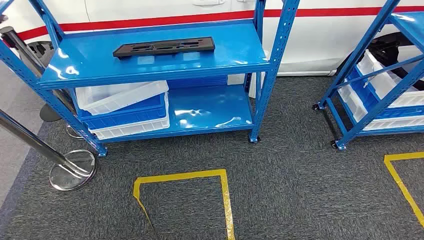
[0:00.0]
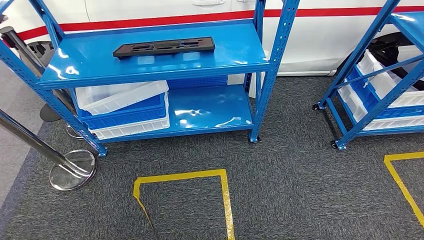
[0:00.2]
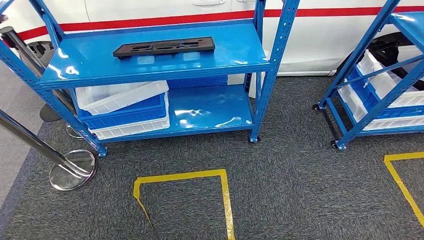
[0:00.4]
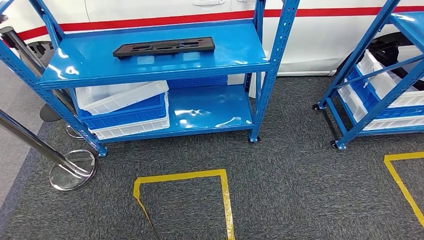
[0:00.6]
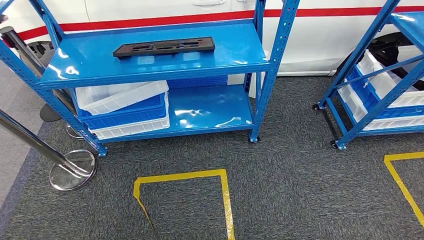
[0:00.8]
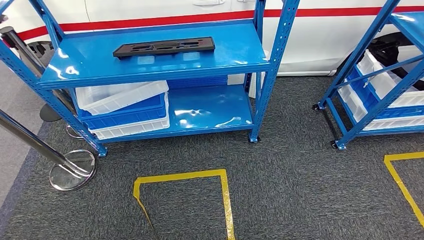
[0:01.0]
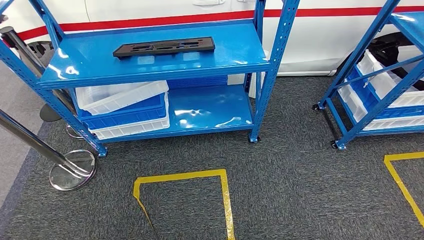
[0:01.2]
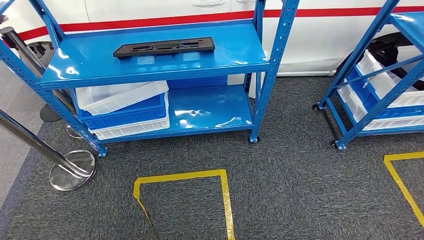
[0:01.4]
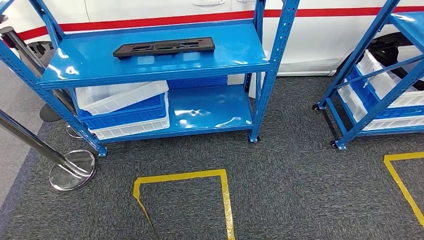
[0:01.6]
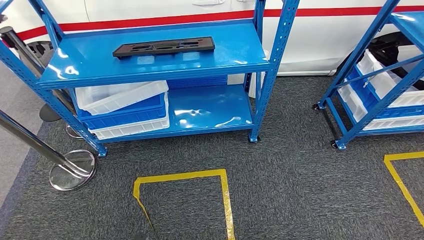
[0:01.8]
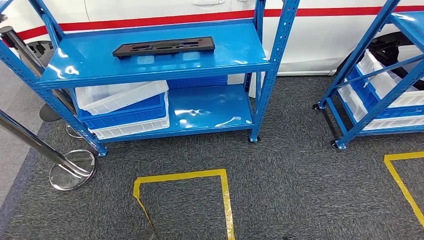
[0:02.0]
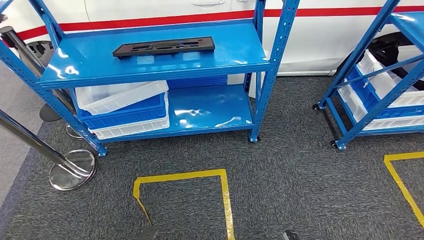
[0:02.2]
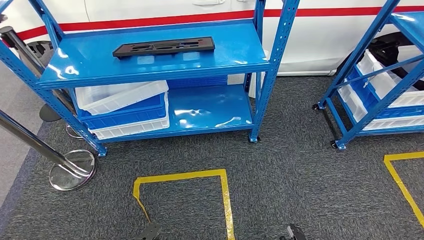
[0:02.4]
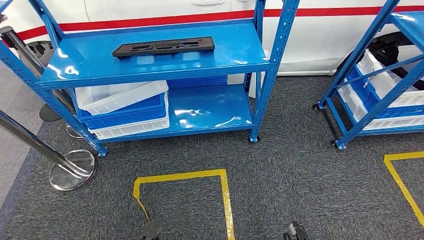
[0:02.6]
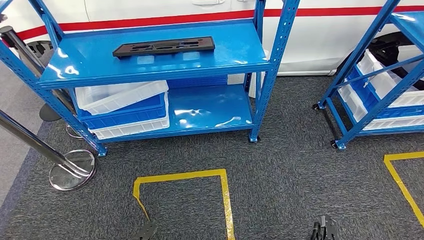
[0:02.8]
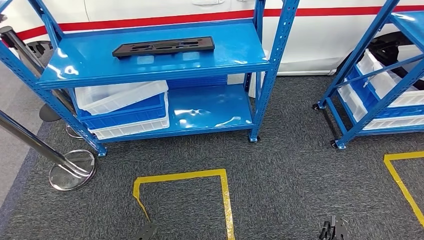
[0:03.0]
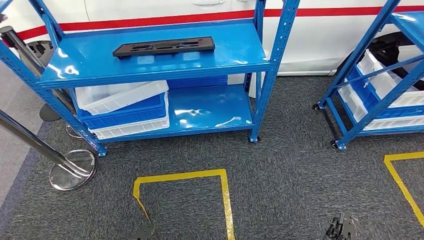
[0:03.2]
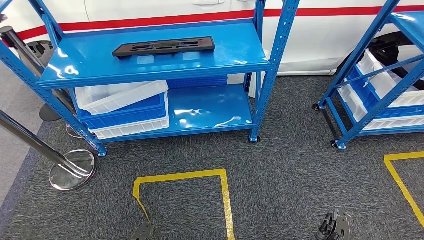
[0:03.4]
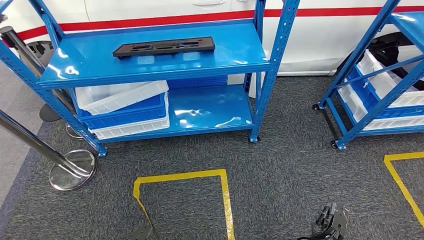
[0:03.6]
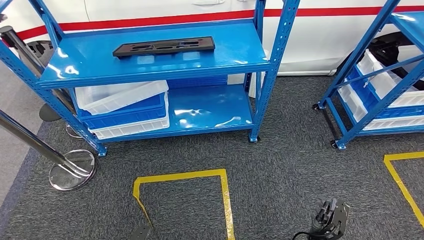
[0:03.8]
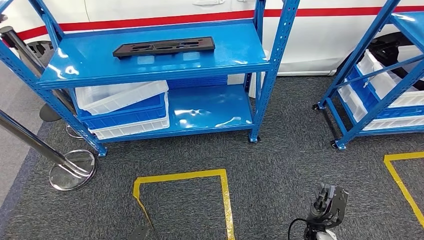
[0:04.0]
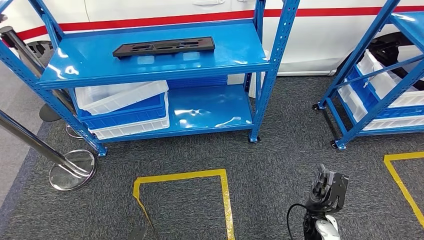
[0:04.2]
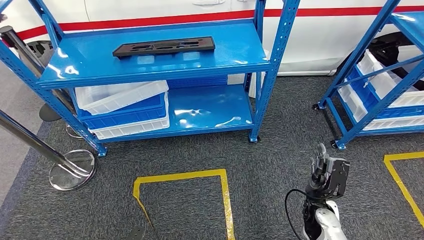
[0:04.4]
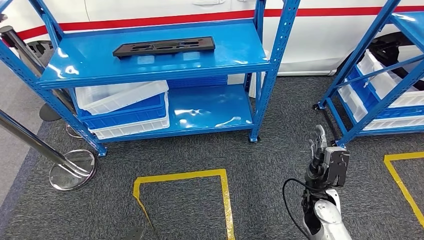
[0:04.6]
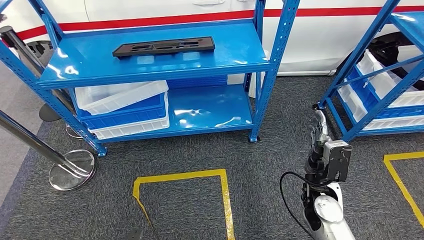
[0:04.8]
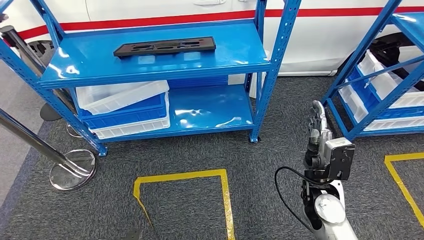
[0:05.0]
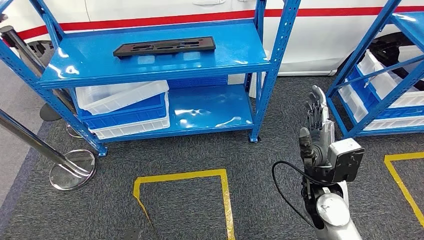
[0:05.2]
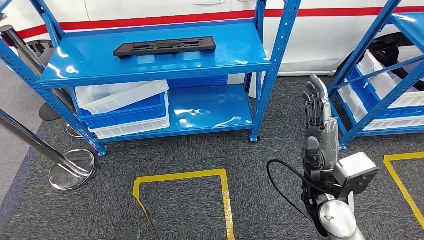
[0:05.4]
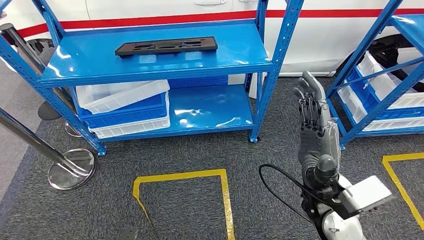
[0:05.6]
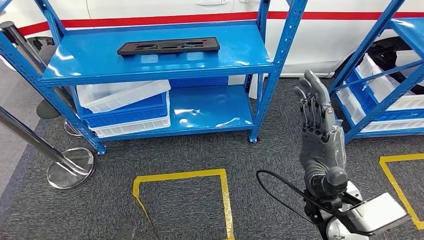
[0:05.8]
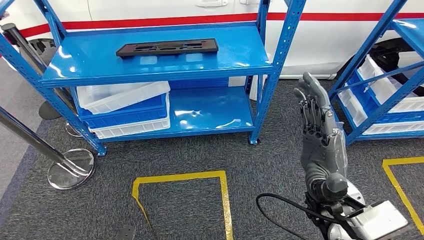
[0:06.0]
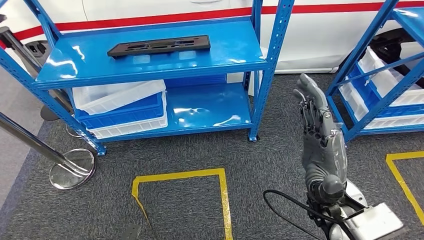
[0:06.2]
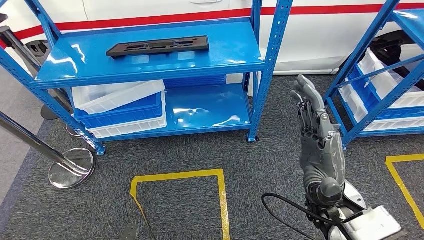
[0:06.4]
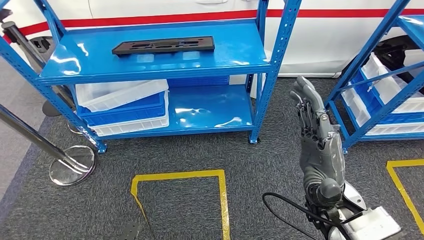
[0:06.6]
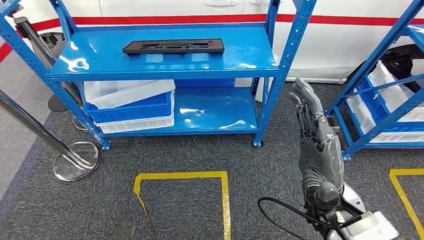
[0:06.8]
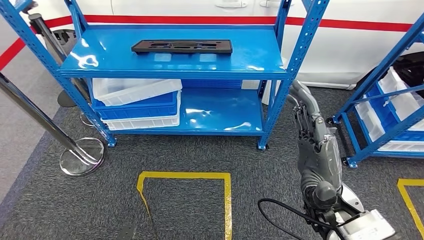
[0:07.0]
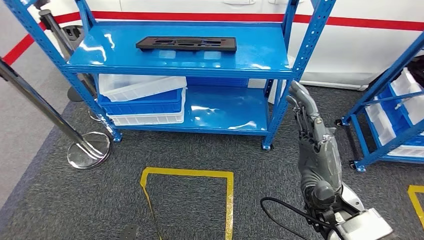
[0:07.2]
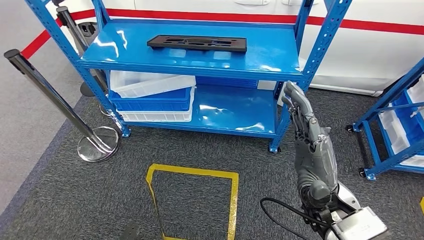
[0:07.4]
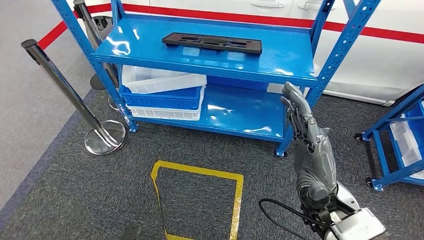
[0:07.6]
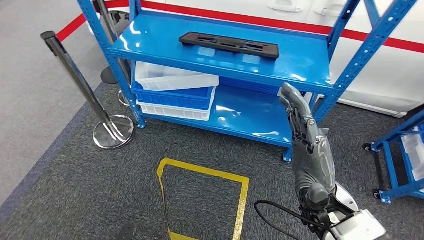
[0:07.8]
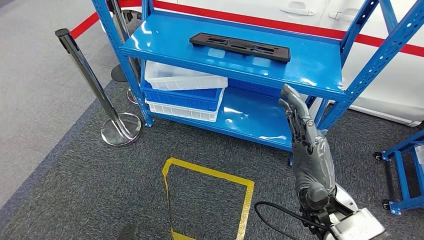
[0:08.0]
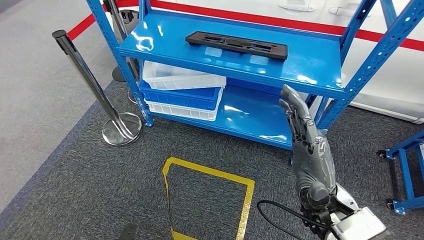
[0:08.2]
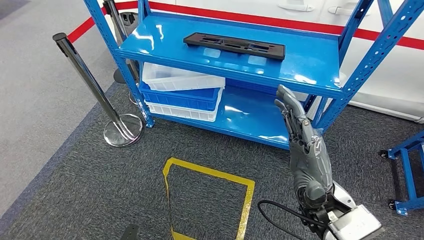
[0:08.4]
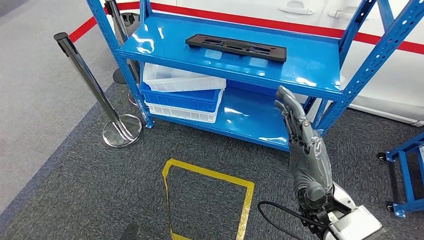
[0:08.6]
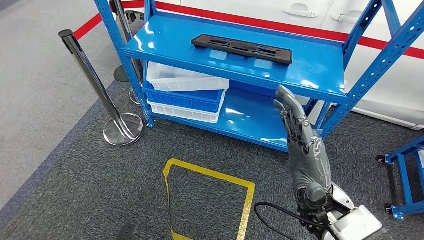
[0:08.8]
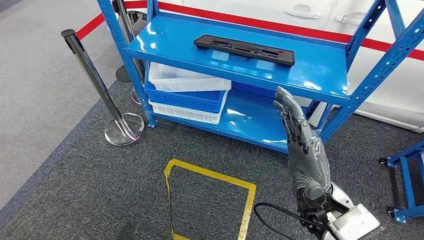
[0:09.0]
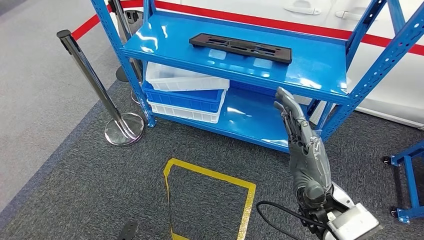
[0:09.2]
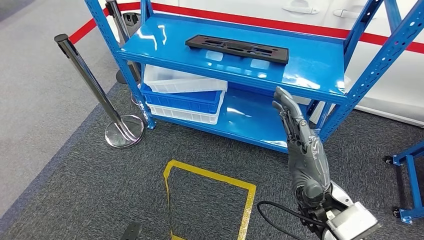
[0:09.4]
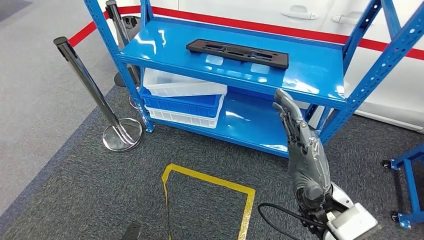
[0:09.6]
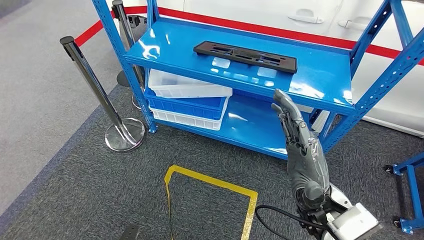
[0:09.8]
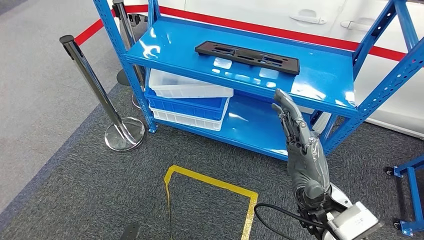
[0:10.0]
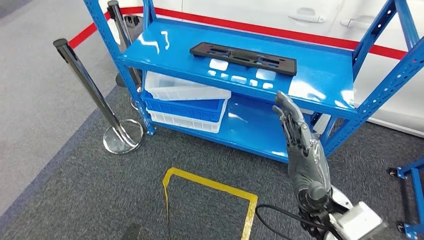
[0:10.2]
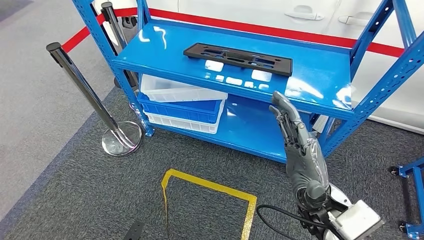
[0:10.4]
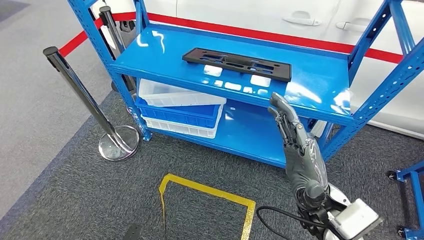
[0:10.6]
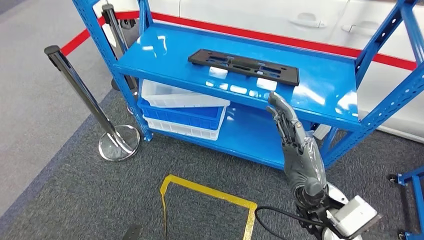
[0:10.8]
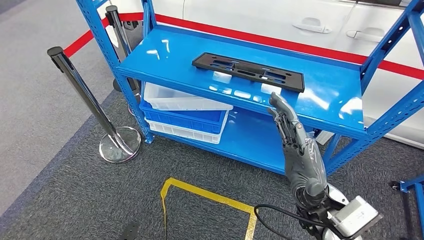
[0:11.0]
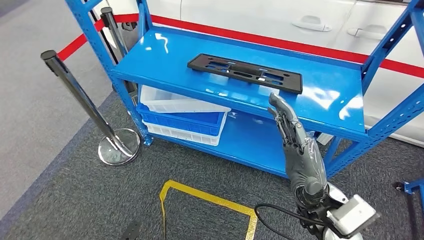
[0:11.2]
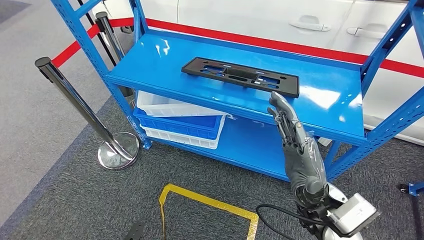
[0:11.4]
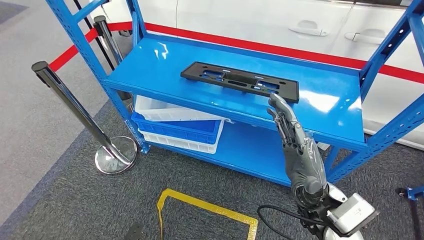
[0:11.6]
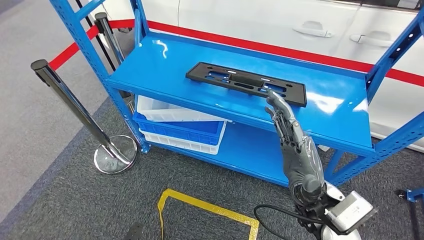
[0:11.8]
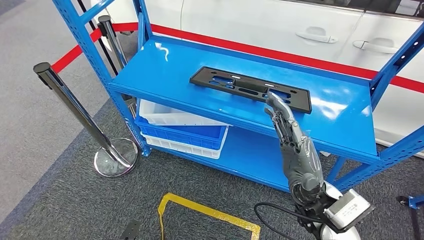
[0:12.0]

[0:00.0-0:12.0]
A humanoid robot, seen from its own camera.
0:01.6 to 0:03.0: The left hand moves forward, roughly 5 cm; the right hand is displaced forward and to the right by some 15 cm.
0:03.0 to 0:04.4: The right hand shifts roughly 20 cm upward and forward.

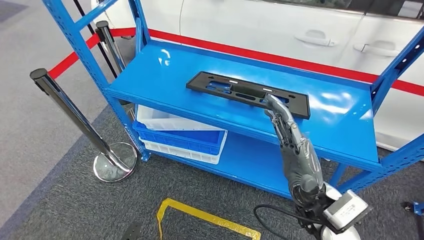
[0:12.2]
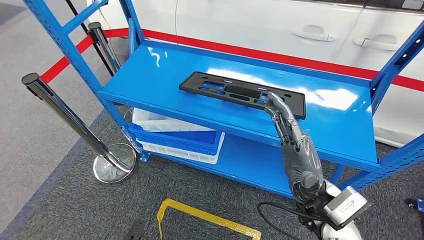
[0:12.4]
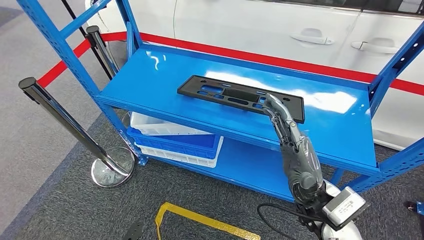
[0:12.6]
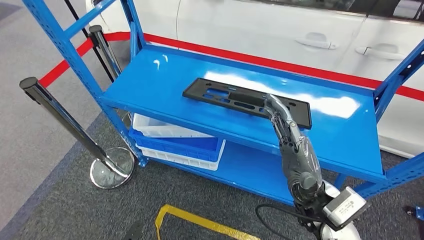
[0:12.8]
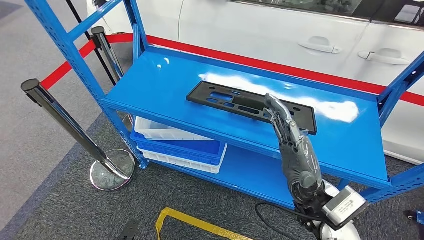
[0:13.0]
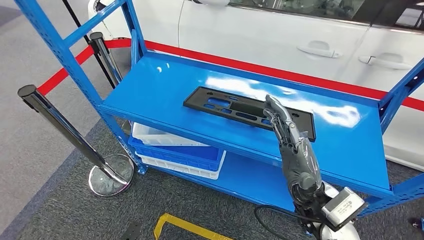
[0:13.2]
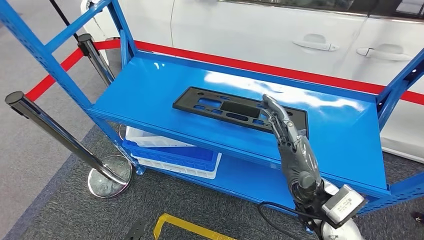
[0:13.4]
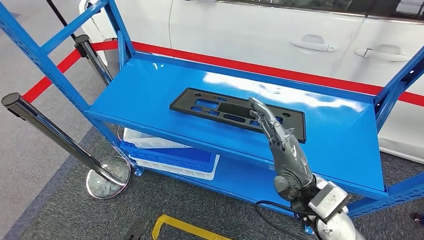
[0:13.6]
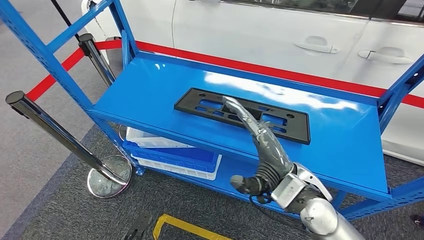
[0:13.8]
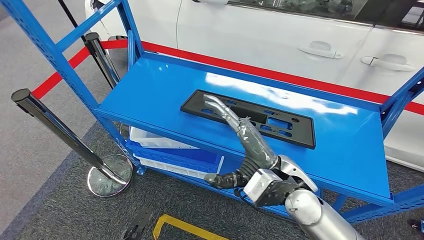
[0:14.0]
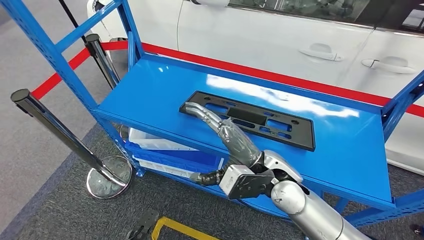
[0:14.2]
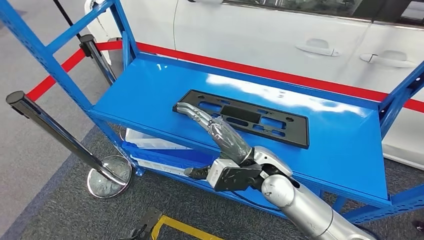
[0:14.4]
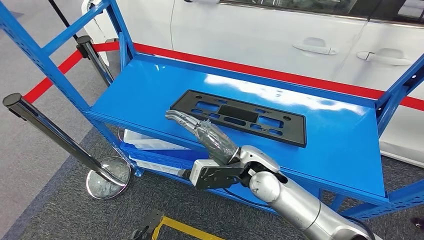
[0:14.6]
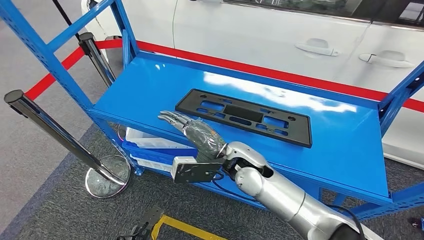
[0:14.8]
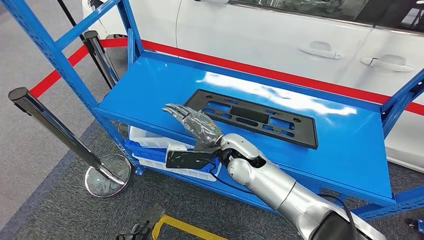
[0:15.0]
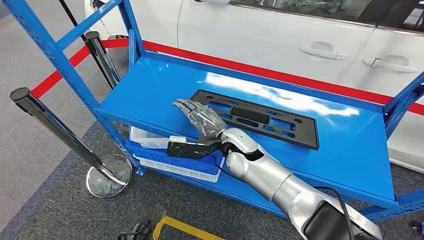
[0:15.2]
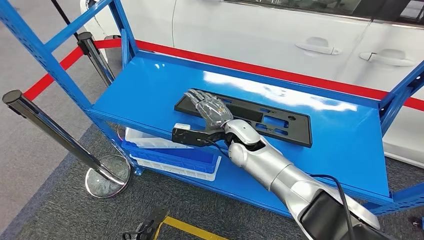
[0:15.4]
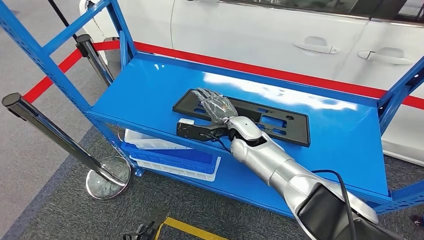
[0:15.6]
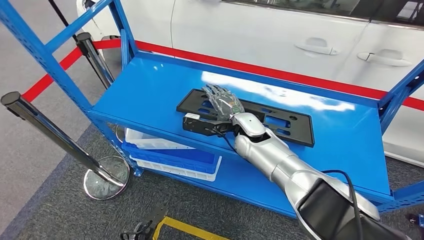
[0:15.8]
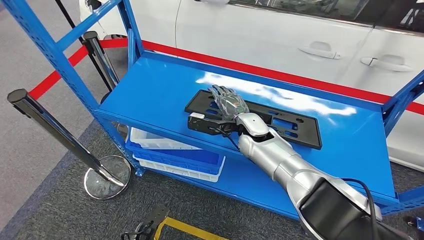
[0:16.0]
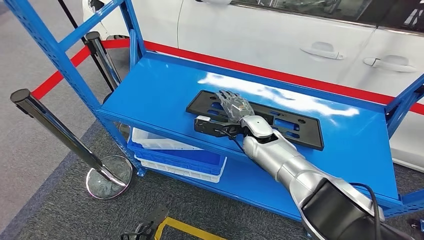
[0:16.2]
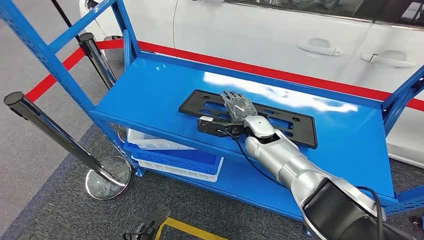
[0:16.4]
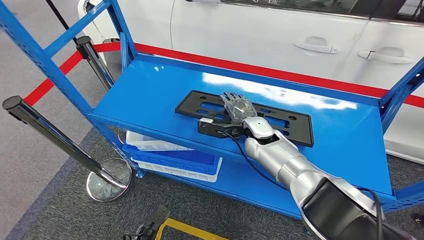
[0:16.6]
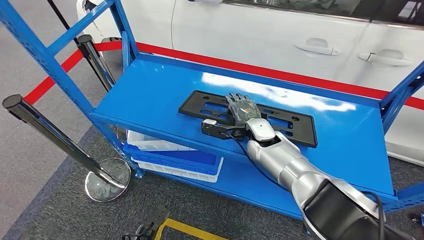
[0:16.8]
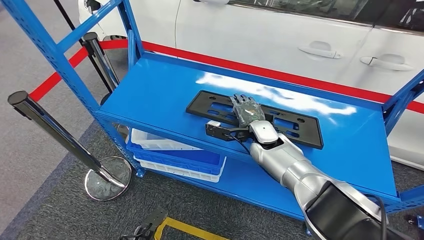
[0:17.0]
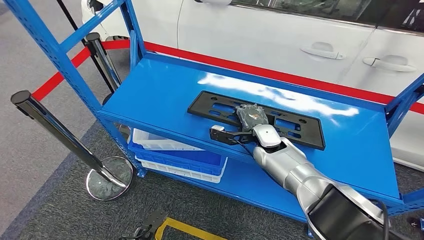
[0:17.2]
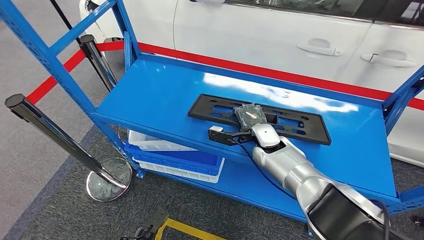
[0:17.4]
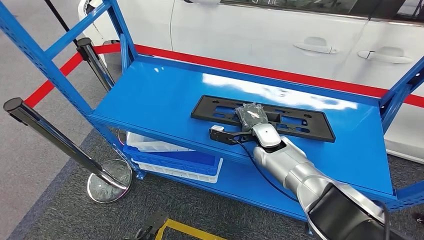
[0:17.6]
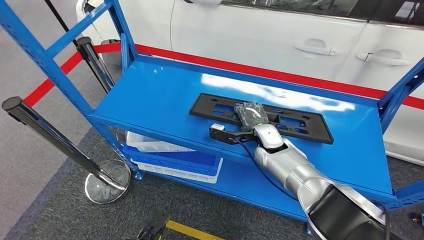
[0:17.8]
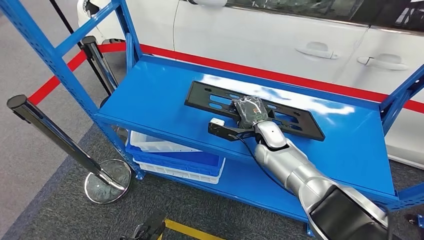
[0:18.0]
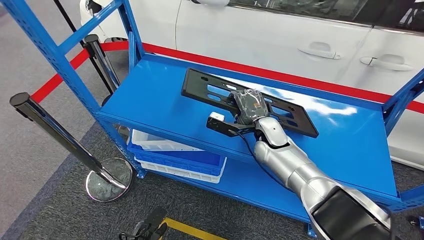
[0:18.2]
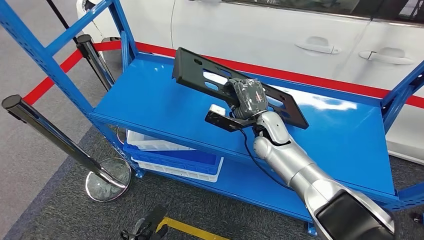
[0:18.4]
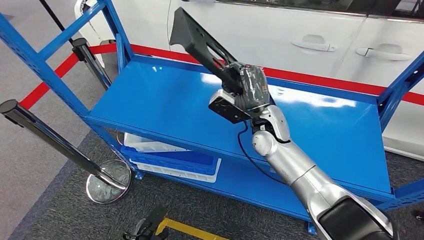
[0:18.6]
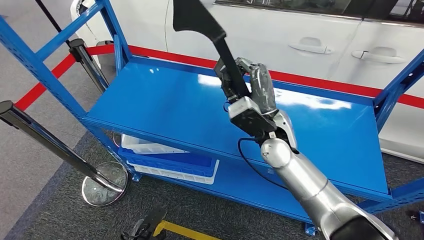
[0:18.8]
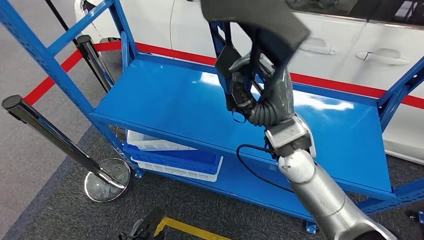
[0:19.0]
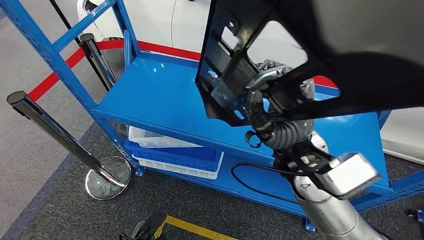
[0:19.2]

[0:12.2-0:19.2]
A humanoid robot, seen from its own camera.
Step, 0:12.2 to 0:18.8: Pick up the large material from the shelf.
